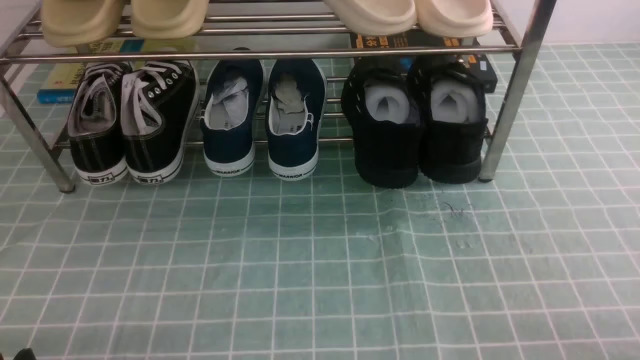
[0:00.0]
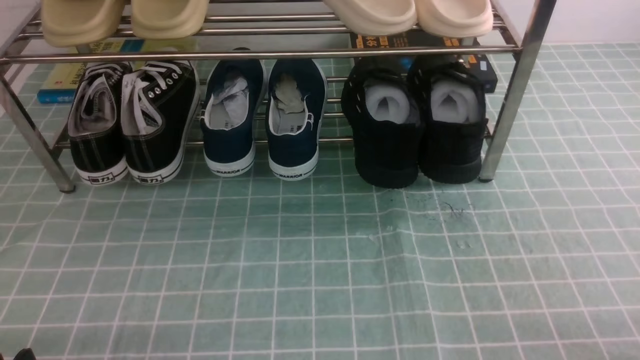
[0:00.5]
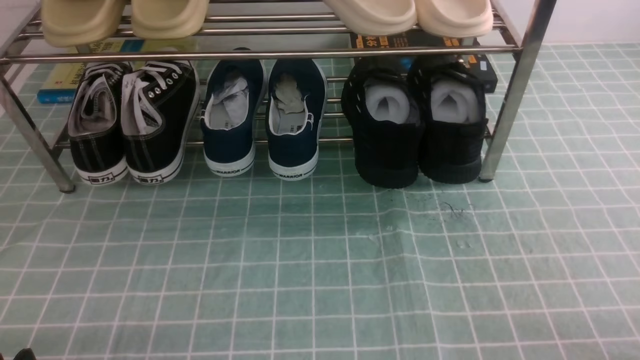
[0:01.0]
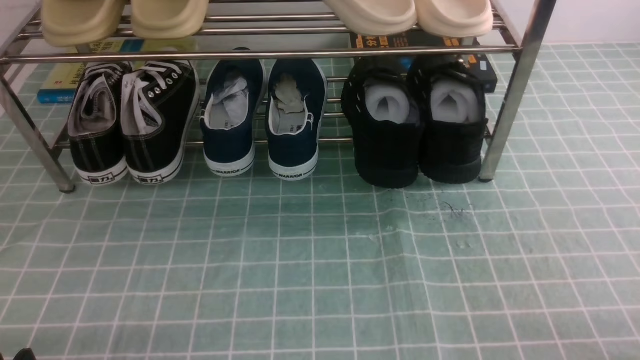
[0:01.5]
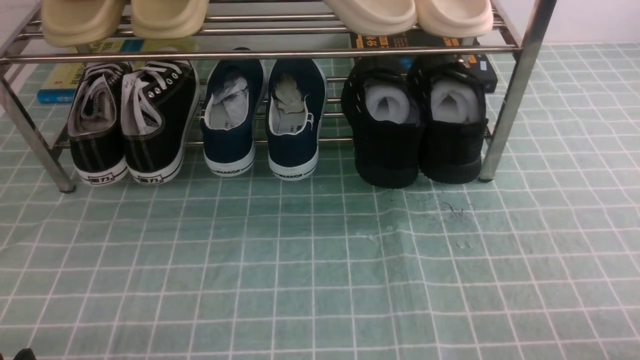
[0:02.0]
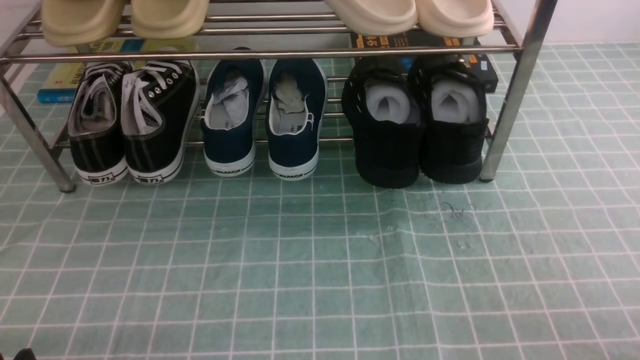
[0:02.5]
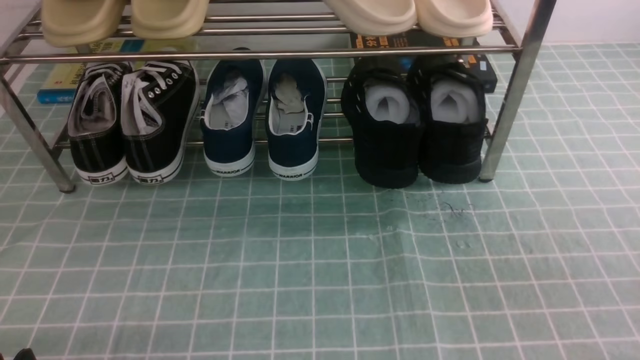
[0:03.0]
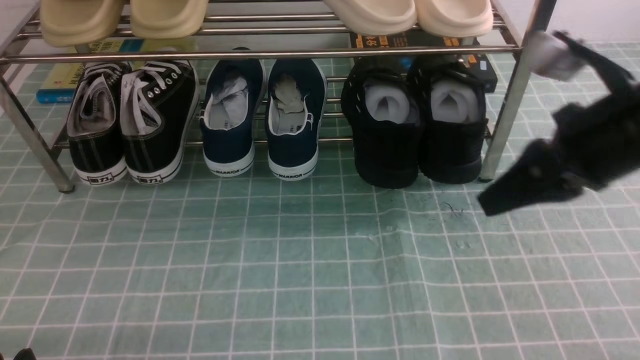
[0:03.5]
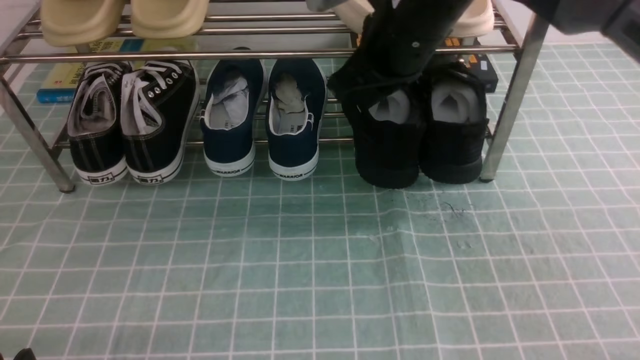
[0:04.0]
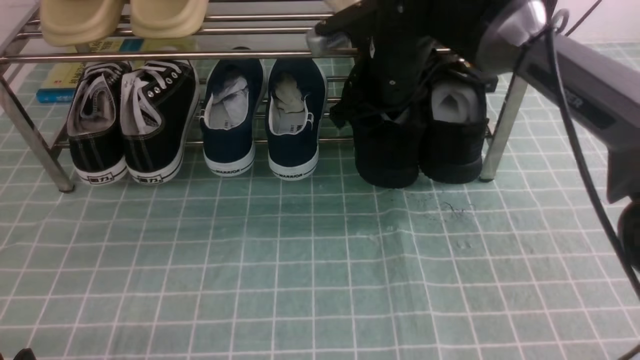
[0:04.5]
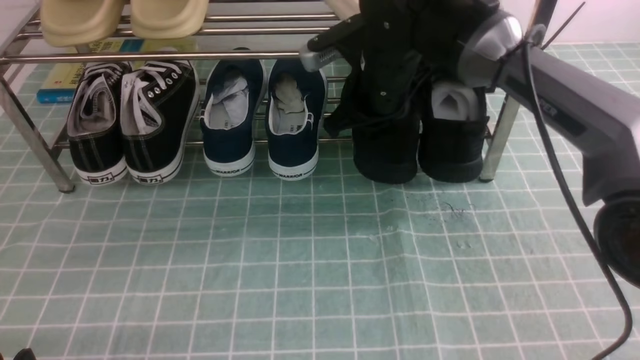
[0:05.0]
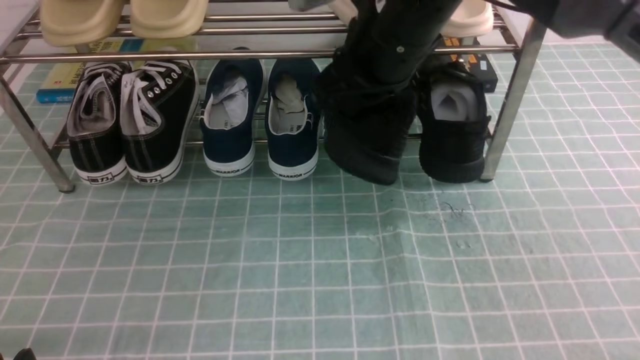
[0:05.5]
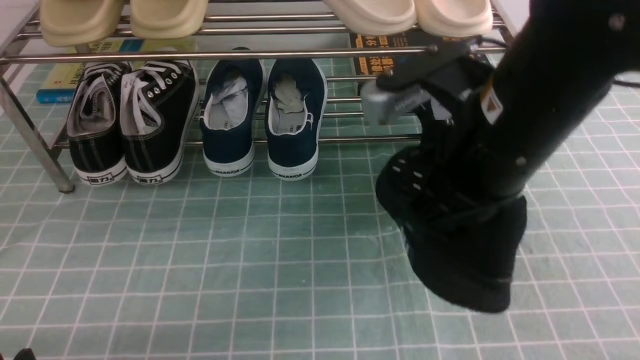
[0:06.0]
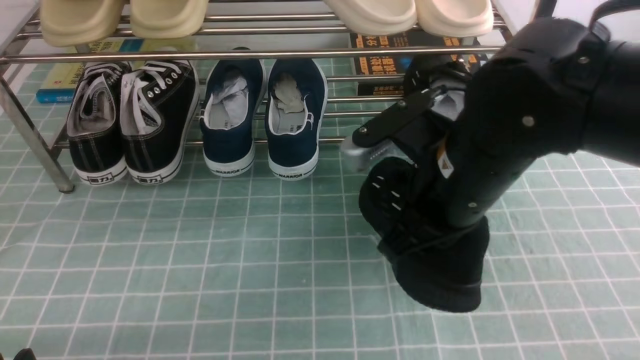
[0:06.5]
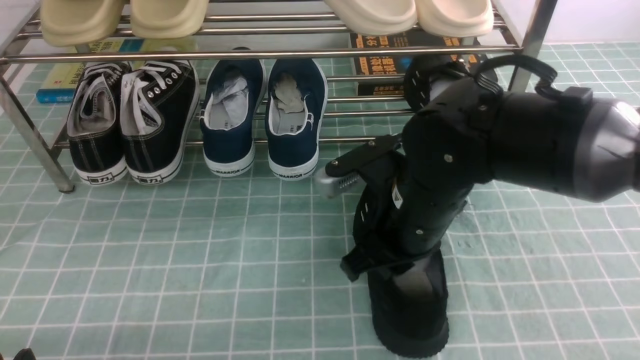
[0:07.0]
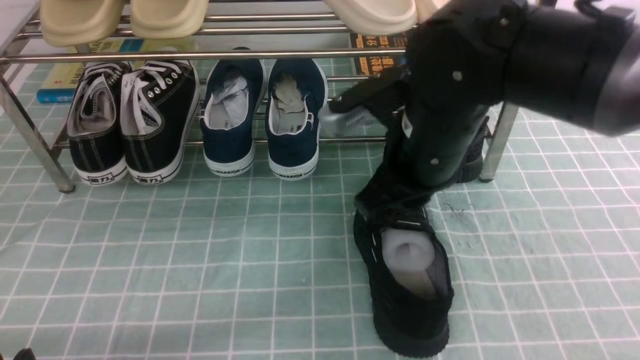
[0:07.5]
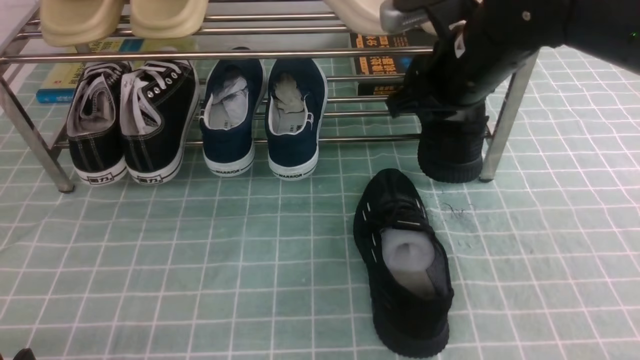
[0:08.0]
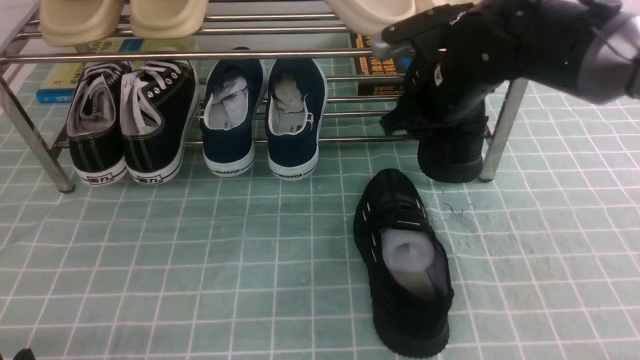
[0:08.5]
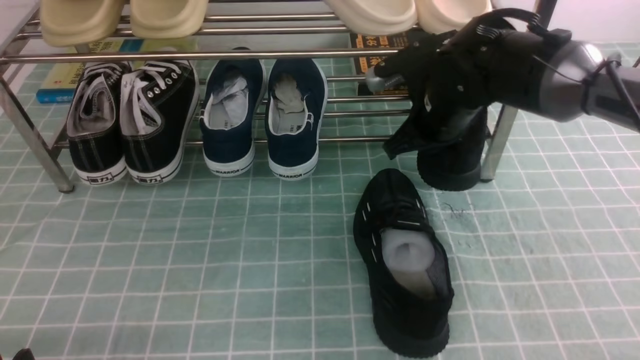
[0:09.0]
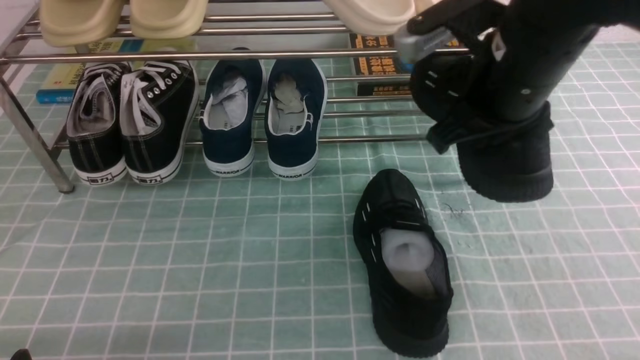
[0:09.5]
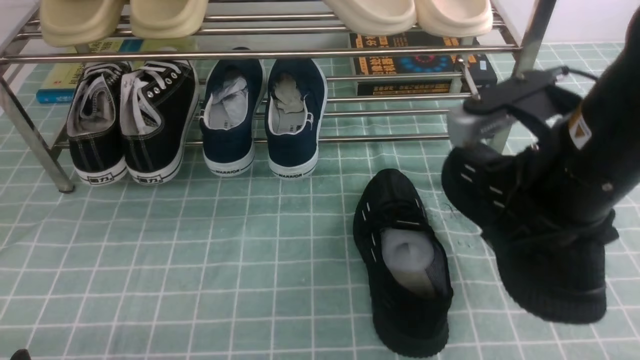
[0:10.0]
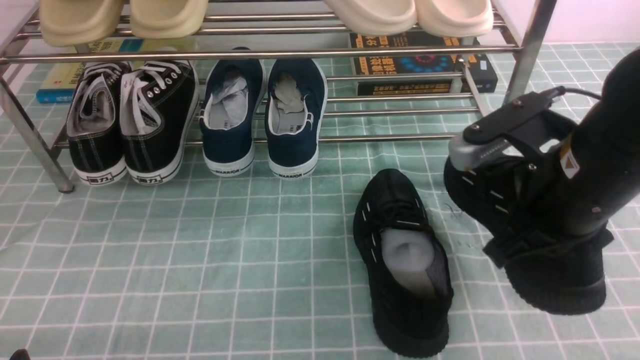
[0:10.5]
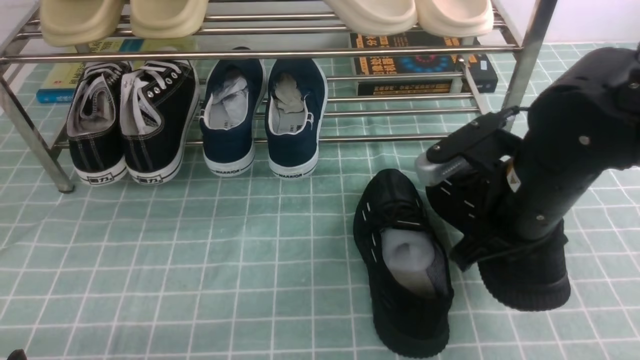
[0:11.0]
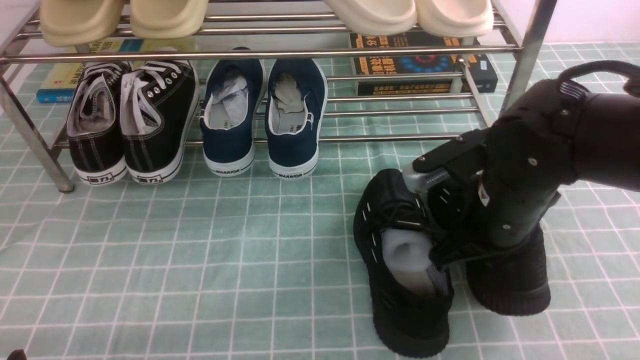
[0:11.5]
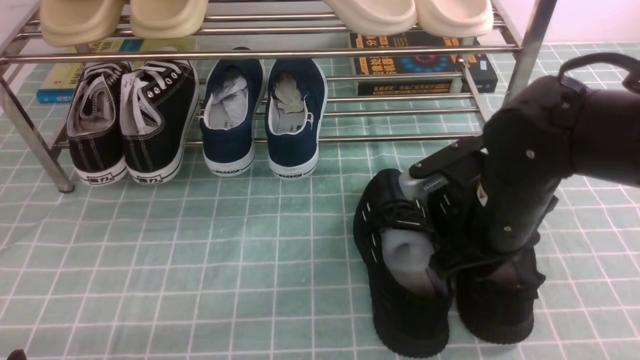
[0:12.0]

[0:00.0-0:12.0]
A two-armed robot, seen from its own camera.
Step, 0:00.0 to 0:04.5: use the right arm to clamp a shoe on the right side of the shoe rack.
Step, 0:05.0 to 0:07.5: use the right arm to take out the clamped shoe from the shoe rack and put it down.
Step, 0:08.0 to 0:08.5: use the right arm to clamp a shoe on the right side of the shoe rack.
Step, 0:09.5 to 0:11.5: use the right arm to take out the clamped shoe from the shoe rack and put it down.
0:02.0 to 0:04.0: The right gripper travels forward, to the left and upward by roughly 40 cm, and closes.
0:04.0 to 0:06.0: The right gripper shifts some 15 cm backward, and opens and closes again.
0:06.0 to 0:08.0: The right gripper goes about 10 cm forward, and opens its fingers.
0:08.0 to 0:10.0: The right gripper shifts about 15 cm backward, and closes up.
0:10.0 to 0:12.0: The right gripper heads downward, covering approximately 10 cm, and opens.

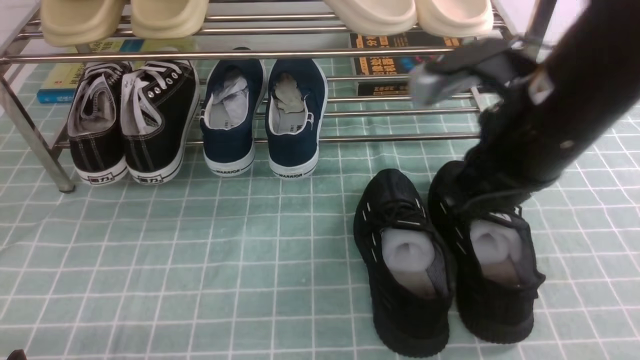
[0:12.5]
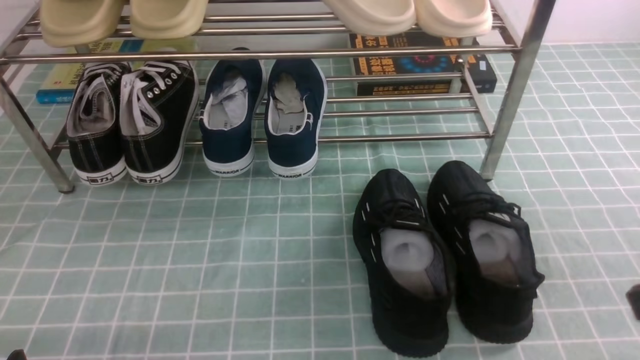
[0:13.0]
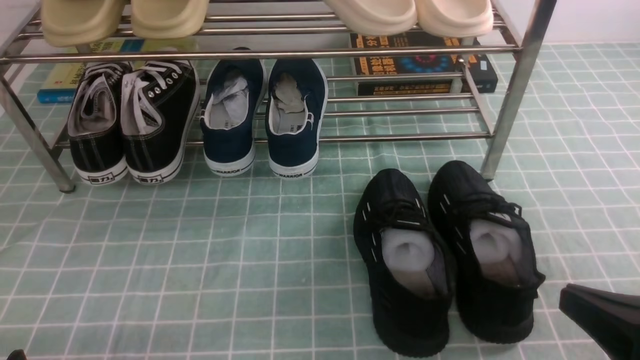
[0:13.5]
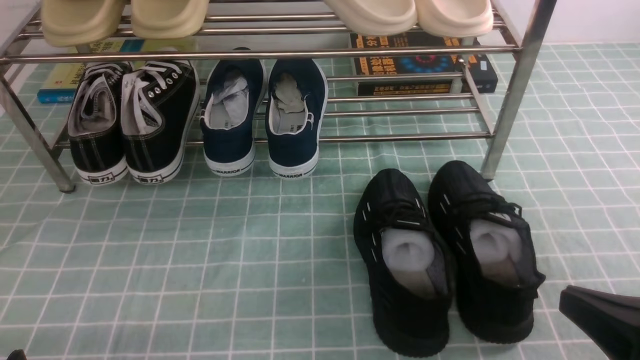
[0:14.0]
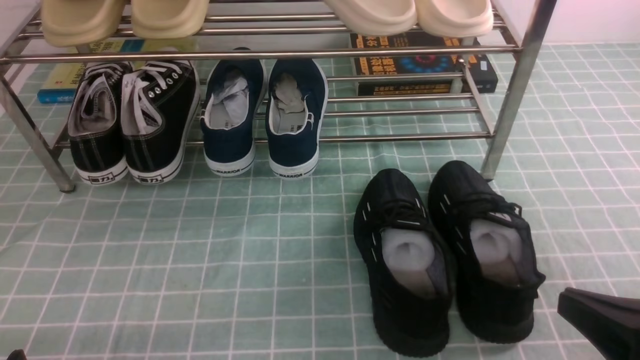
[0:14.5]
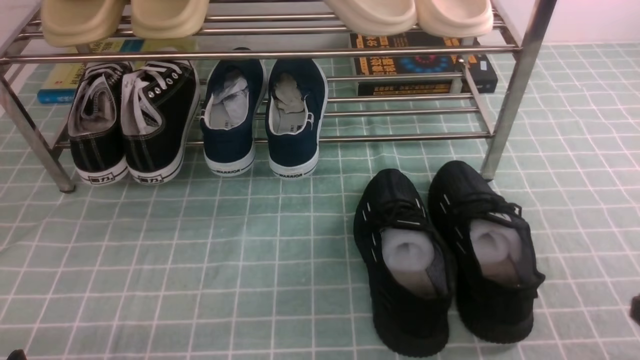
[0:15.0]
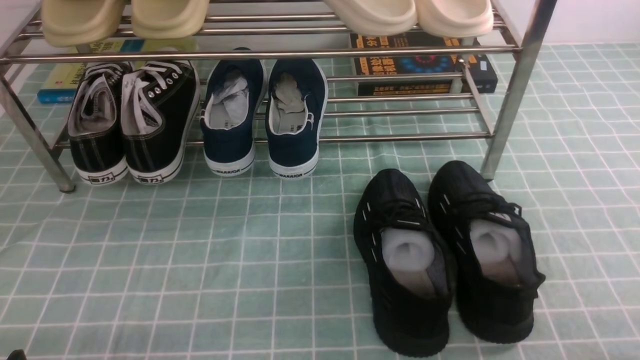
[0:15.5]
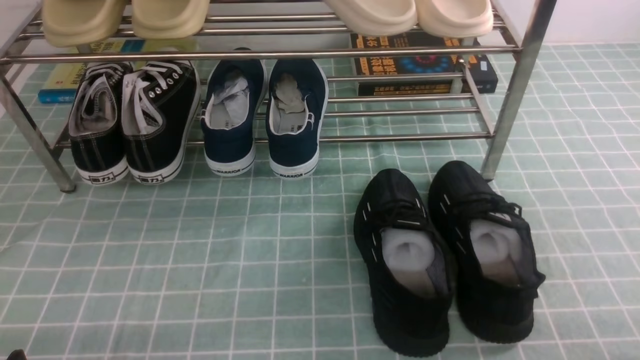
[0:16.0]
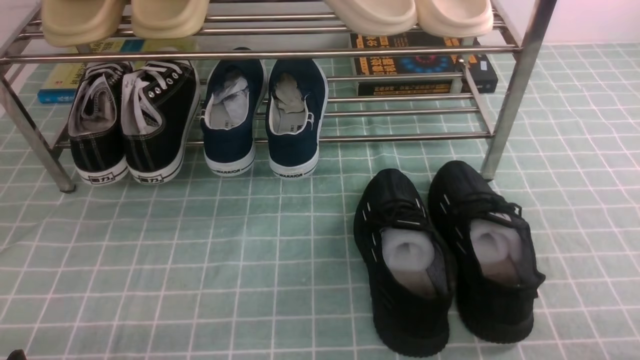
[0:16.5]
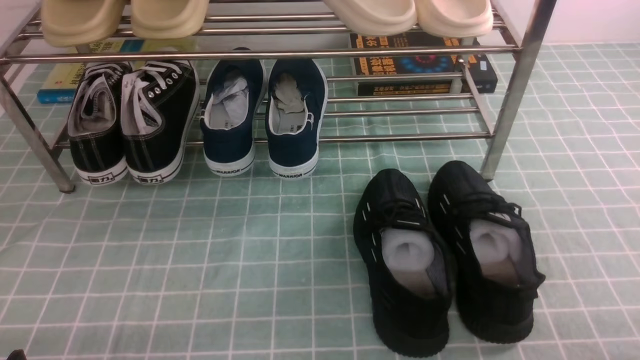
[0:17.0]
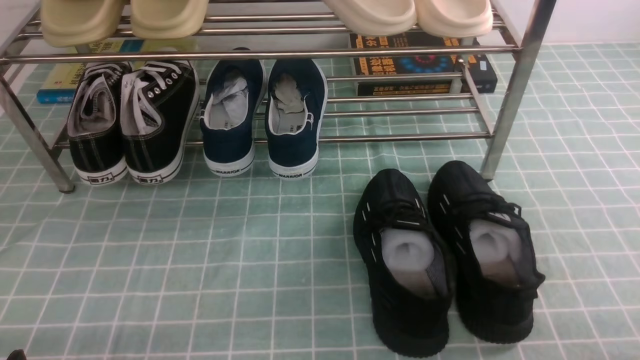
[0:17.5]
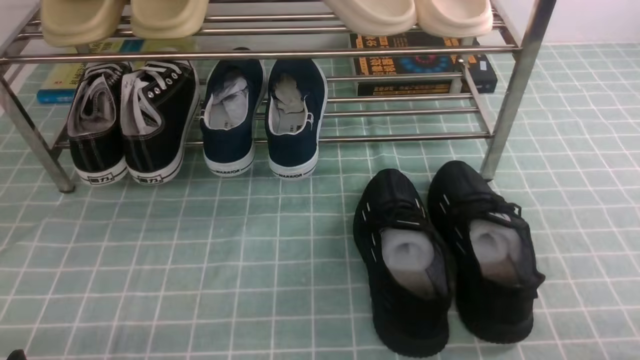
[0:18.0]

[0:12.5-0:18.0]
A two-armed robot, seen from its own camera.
0:12.5 to 0:14.5: The right gripper moves backward, downward and to the right, roughly 20 cm.
0:14.5 to 0:16.0: The right gripper is displaced to the right and downward by roughly 10 cm.
0:16.0 to 0:18.0: Neither gripper changes place.
